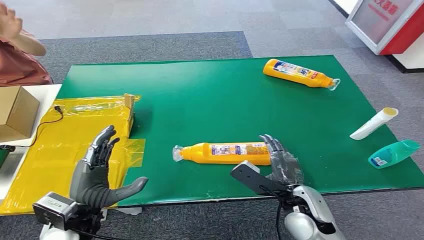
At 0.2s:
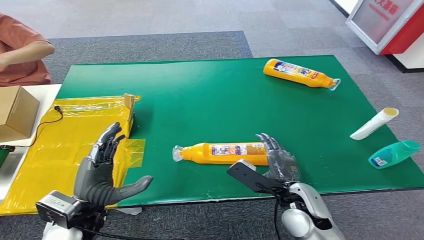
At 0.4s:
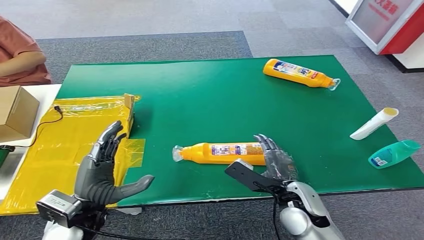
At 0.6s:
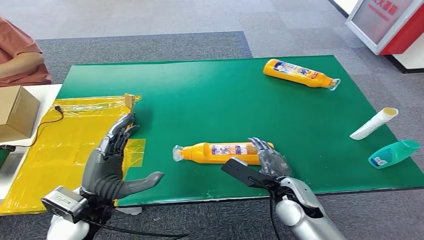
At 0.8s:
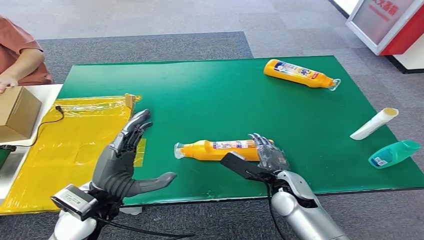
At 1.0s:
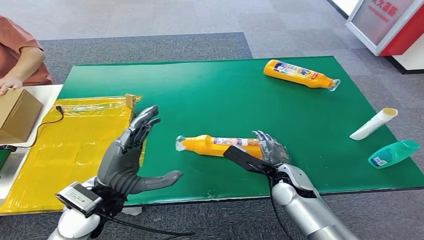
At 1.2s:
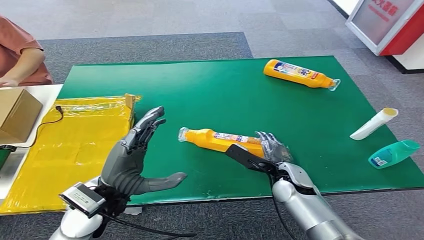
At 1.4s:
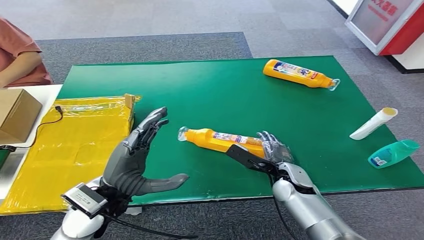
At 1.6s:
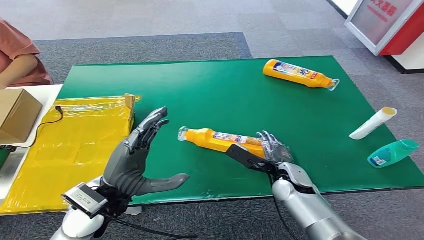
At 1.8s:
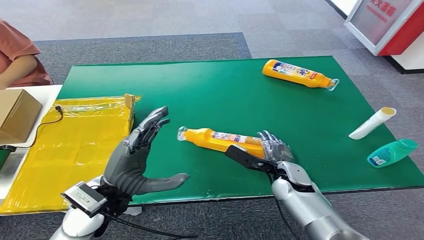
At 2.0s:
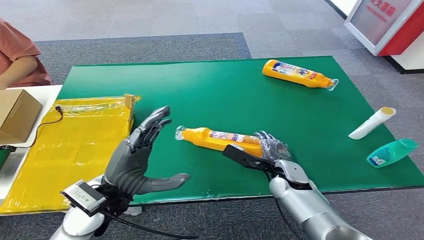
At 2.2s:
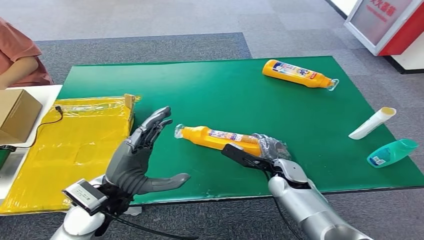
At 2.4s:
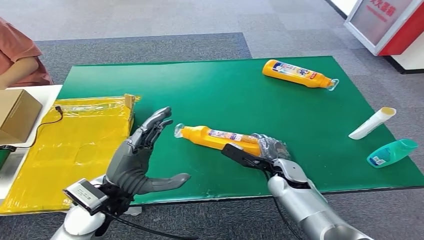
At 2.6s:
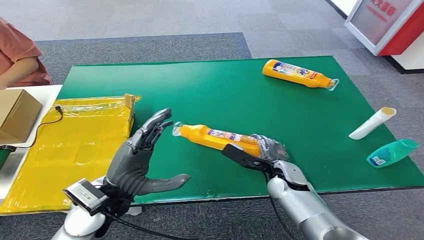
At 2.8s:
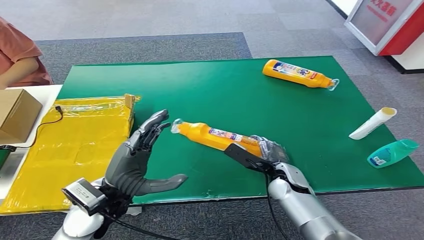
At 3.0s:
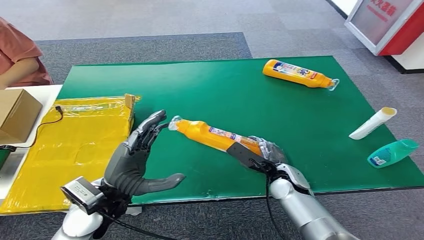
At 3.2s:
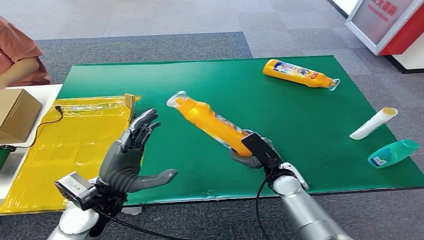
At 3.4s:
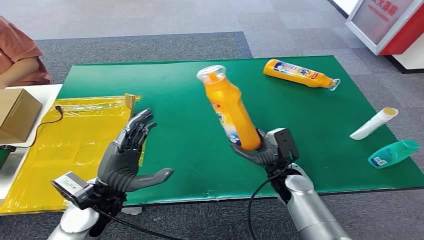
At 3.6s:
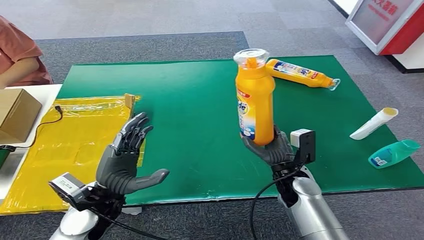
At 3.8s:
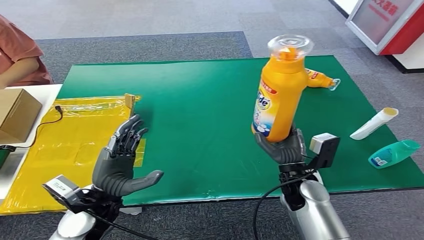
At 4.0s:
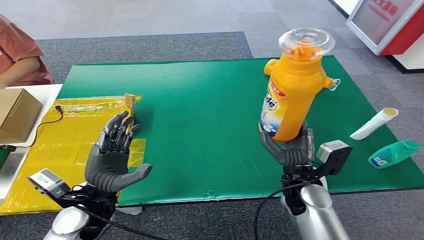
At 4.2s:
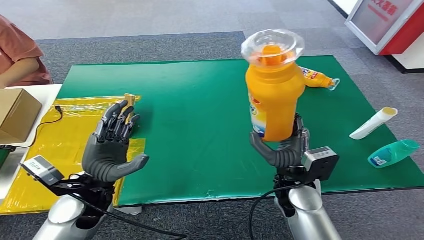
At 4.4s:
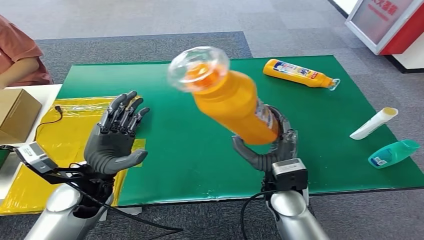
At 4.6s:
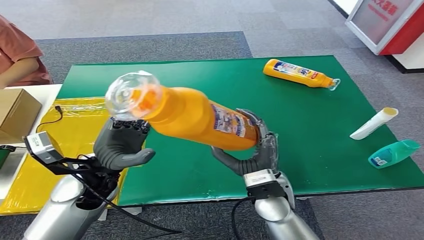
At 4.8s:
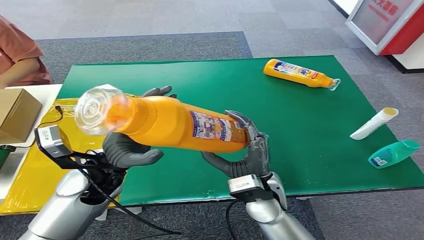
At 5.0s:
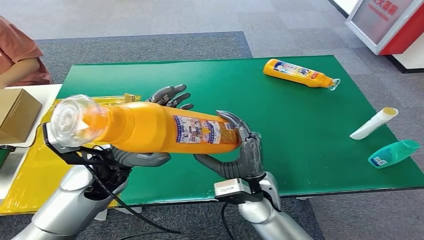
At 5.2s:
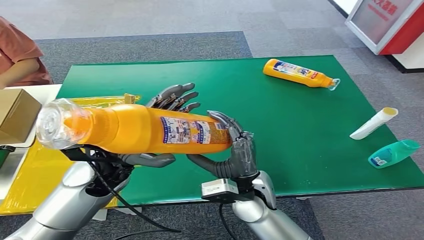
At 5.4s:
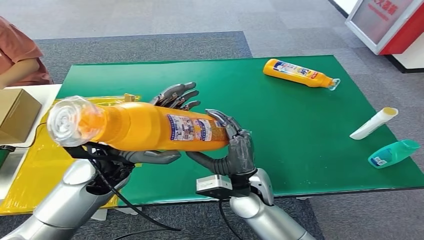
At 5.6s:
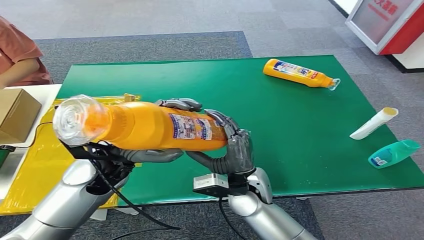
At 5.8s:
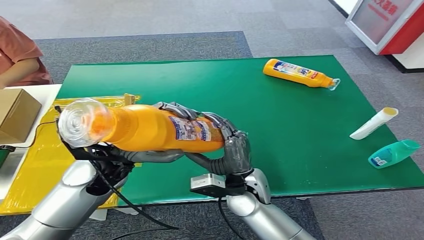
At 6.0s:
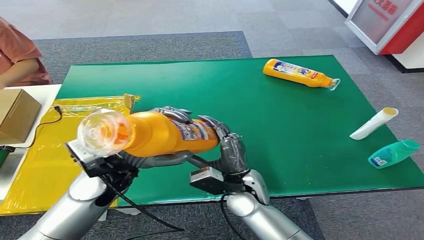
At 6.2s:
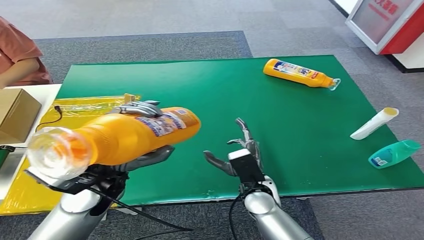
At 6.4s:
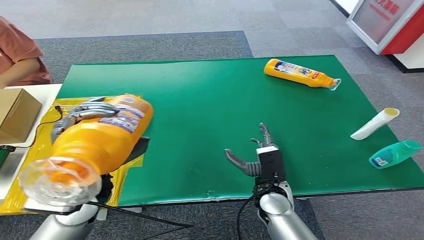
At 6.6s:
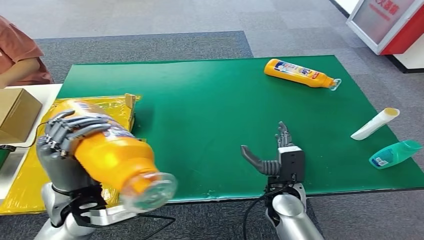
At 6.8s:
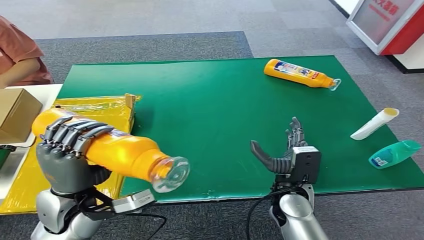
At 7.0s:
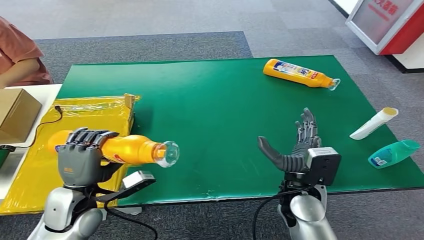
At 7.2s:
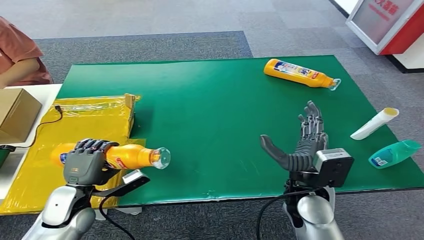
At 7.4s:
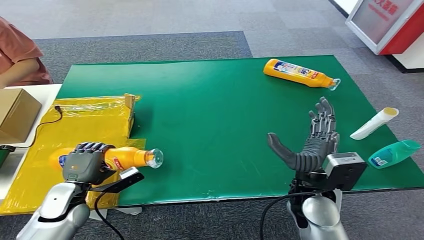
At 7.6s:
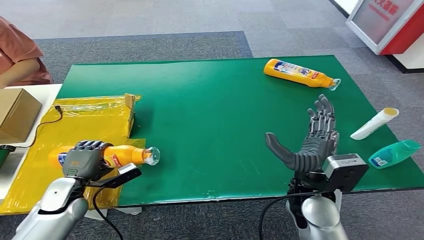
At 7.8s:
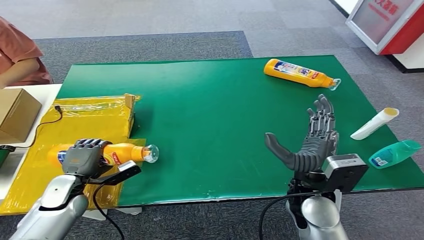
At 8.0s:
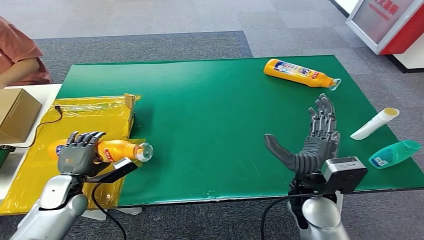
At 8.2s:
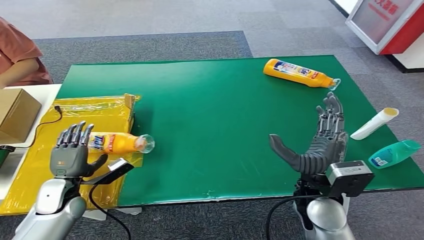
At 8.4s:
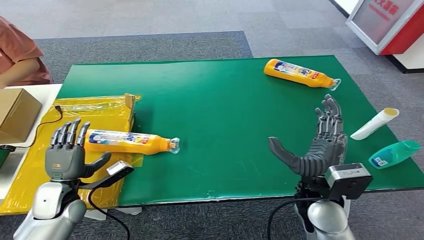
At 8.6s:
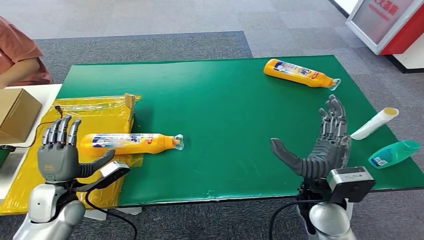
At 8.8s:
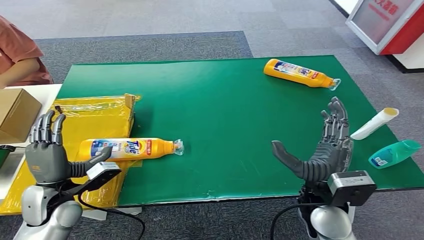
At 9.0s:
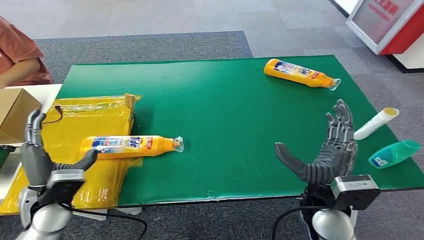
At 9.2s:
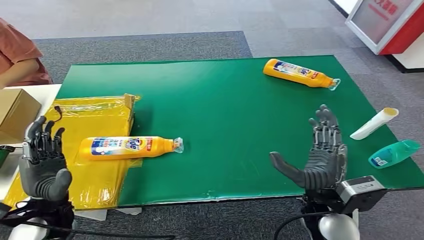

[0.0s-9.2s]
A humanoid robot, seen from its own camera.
Step, 0.0s to 4.0s: Pick up the bottle from the table.
Step, 4.2s to 9.0s: Turn the bottle to the front side.
1.6s to 3.0s: The hands make only small movements.
4.6s to 6.2s: The right hand shifts roughly 5 cm downward.
7.6s to 9.2s: The left hand shifts some 10 cm upward and backward.

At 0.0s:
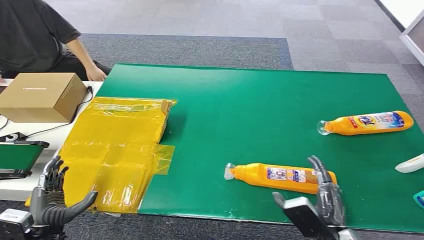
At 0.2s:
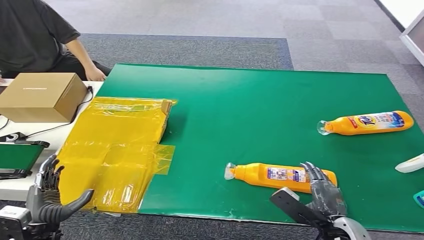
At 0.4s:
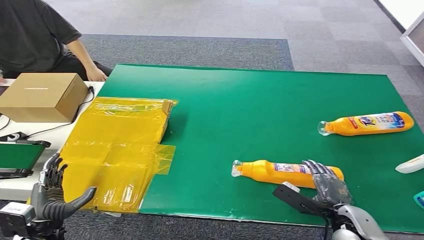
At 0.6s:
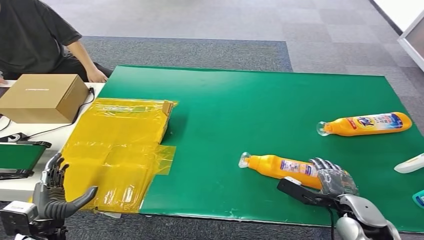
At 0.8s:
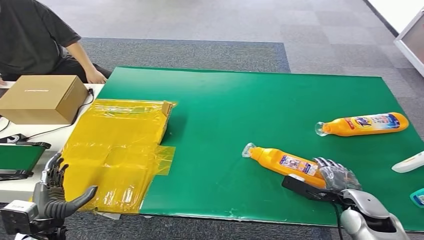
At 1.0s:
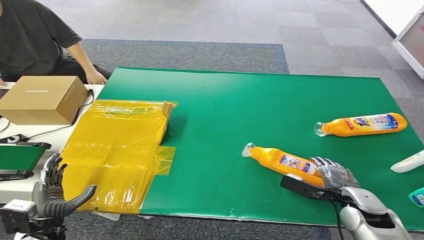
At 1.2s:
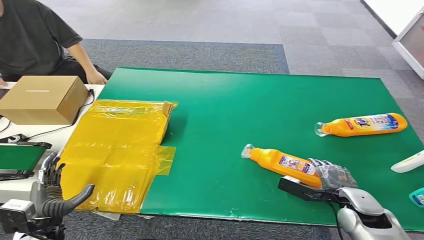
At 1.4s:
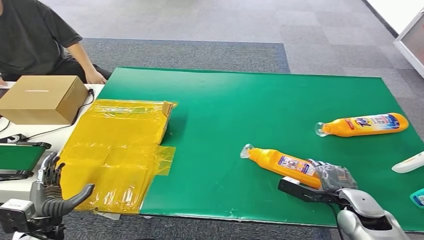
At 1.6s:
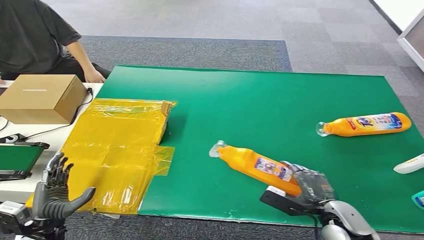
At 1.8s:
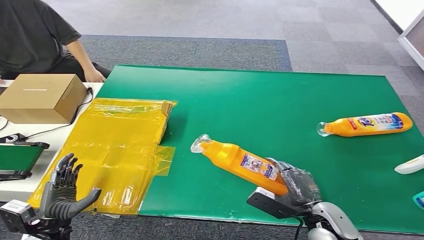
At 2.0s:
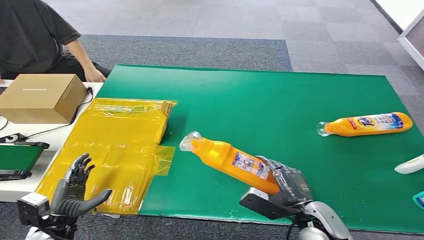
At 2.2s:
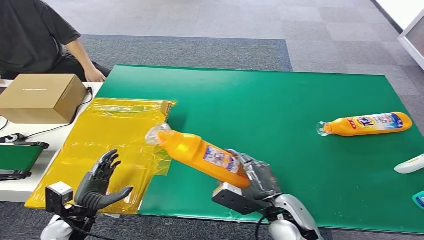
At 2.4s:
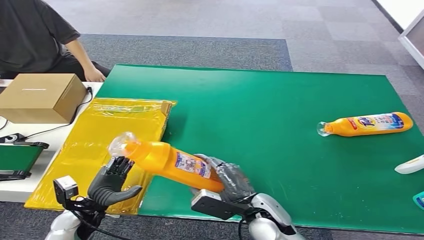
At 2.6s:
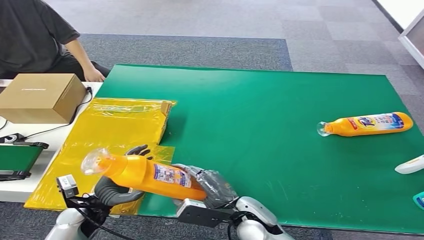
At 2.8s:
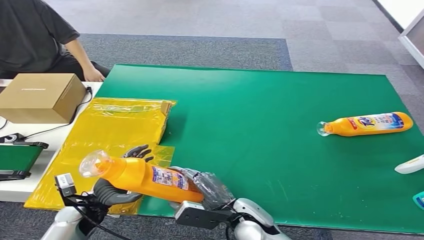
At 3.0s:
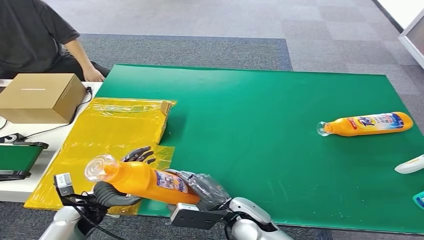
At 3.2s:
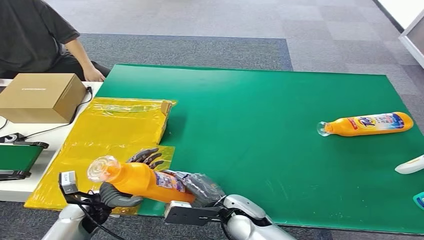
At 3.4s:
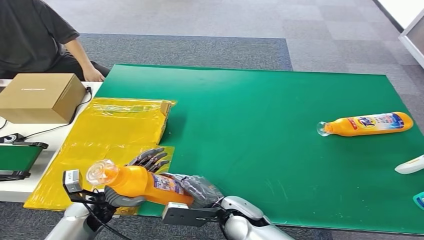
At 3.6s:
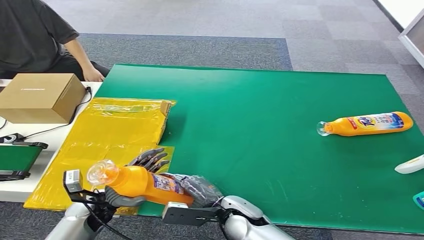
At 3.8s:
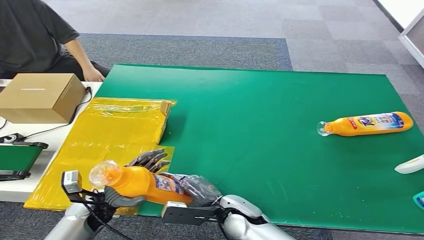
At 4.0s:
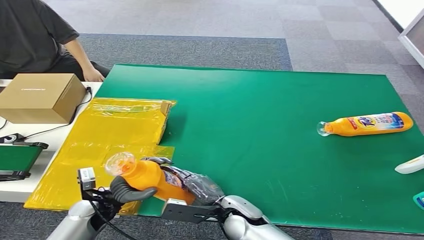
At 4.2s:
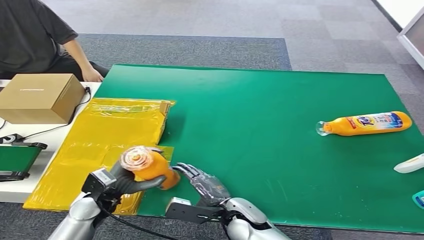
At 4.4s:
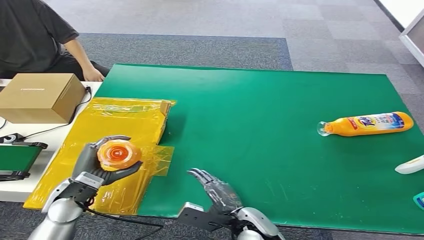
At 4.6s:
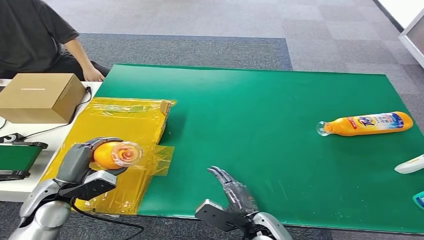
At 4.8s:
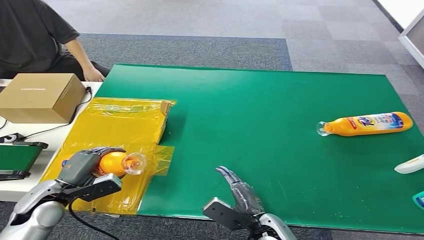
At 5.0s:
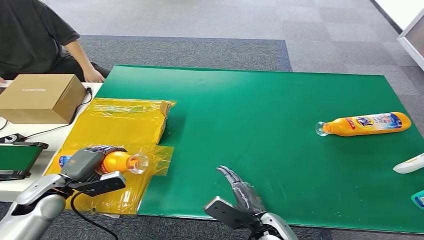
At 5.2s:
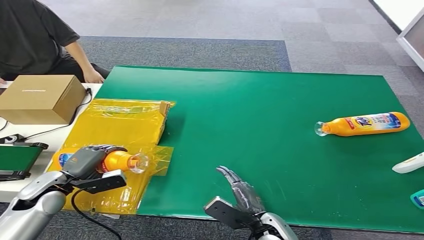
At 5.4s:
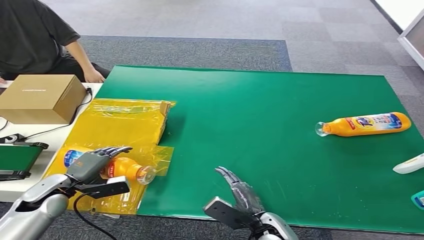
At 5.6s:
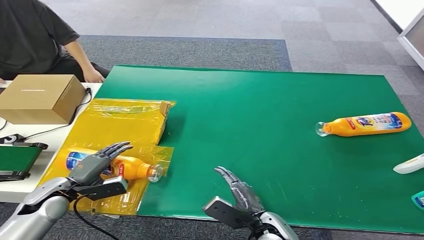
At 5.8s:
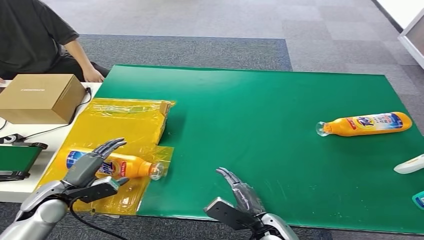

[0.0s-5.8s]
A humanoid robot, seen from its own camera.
Step, 0.0s to 2.0s: Pick up the bottle from the table.
Step, 2.2s to 5.8s: Turn the bottle to the front side.
2.8s to 4.4s: The left hand is displaced upward by some 5 cm.
4.4s to 5.8s: The left hand goes approximately 5 cm to the left.
